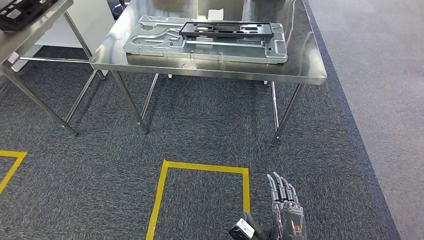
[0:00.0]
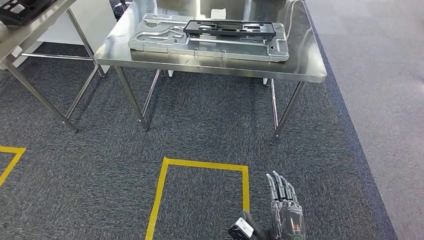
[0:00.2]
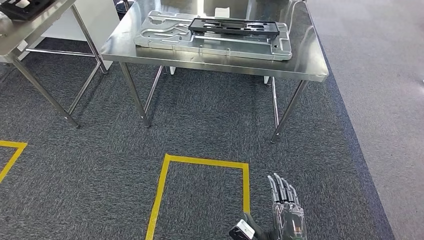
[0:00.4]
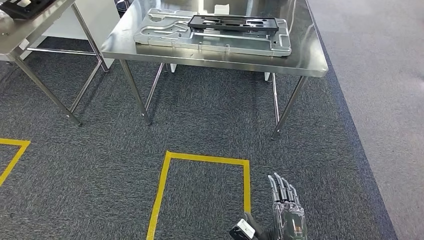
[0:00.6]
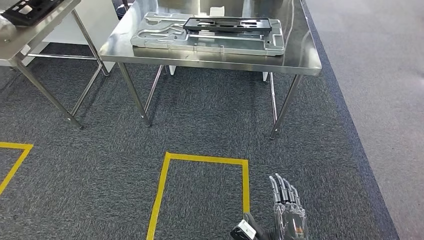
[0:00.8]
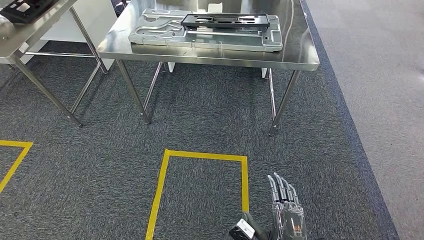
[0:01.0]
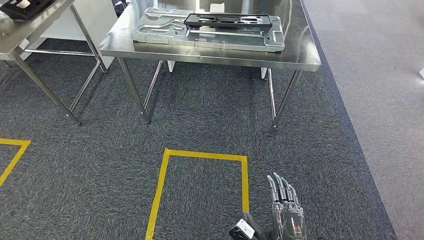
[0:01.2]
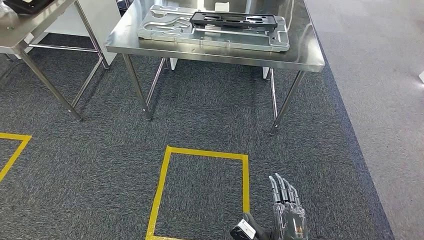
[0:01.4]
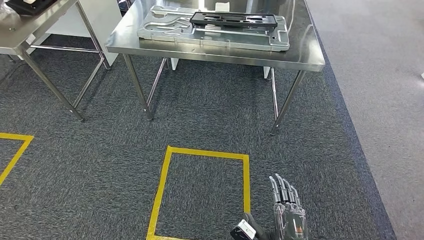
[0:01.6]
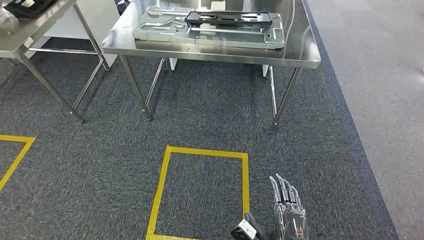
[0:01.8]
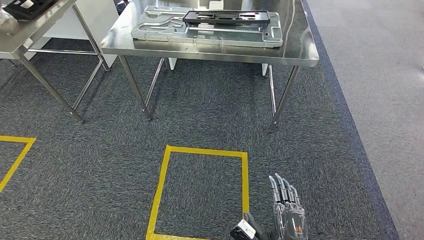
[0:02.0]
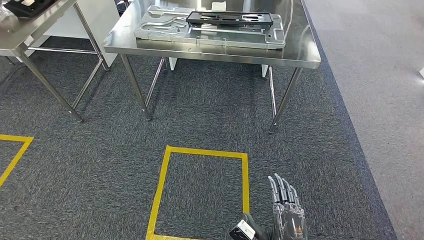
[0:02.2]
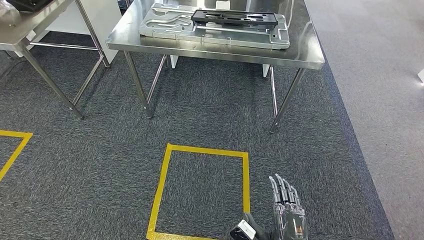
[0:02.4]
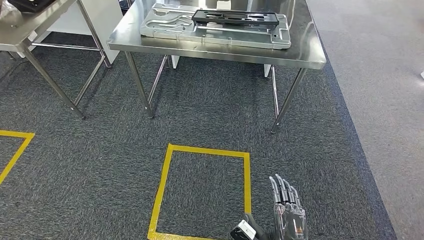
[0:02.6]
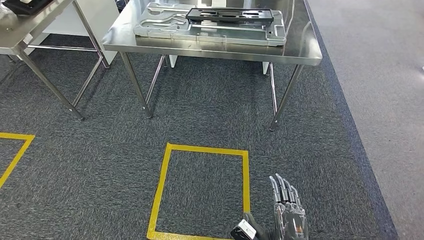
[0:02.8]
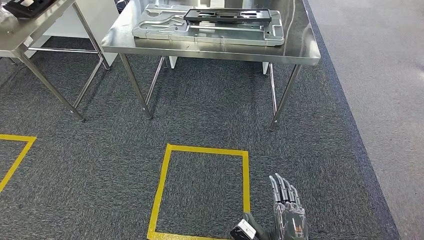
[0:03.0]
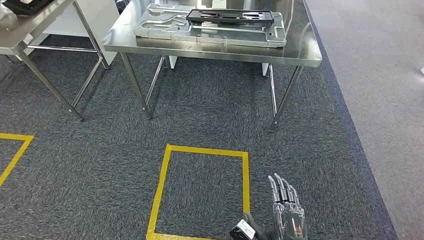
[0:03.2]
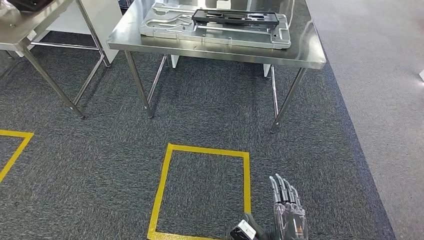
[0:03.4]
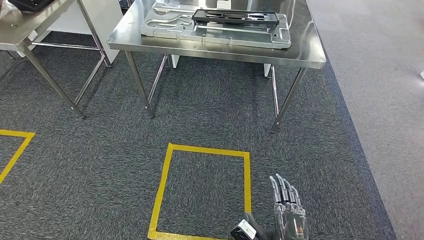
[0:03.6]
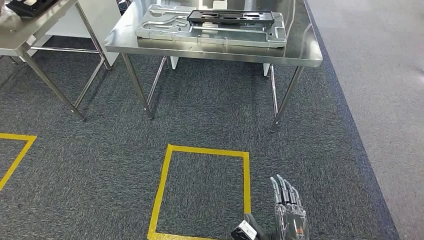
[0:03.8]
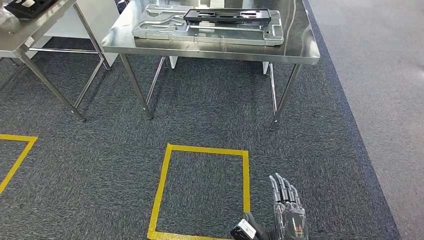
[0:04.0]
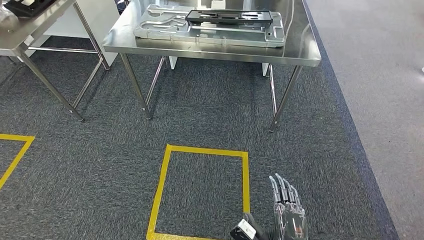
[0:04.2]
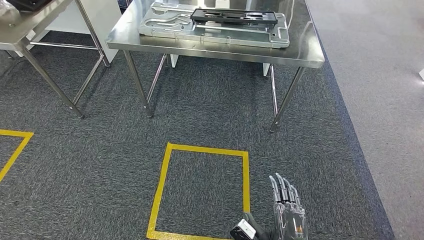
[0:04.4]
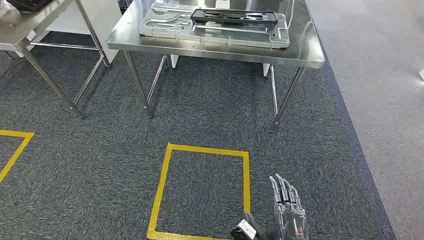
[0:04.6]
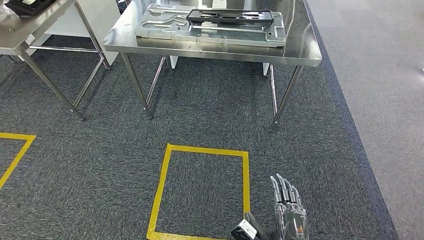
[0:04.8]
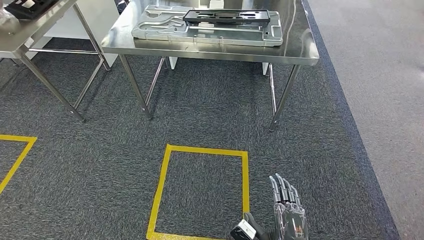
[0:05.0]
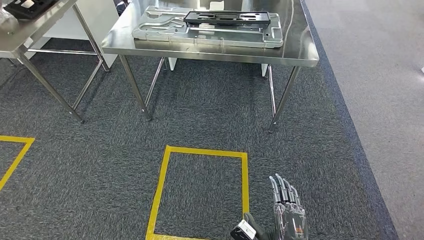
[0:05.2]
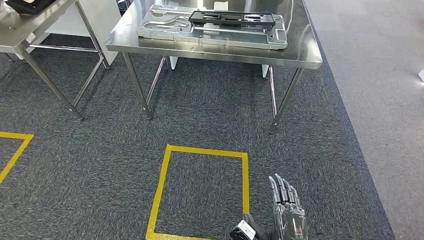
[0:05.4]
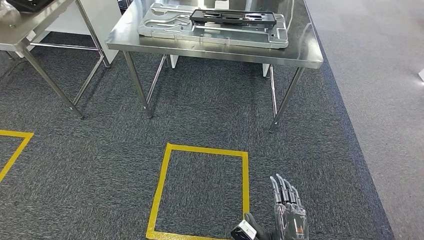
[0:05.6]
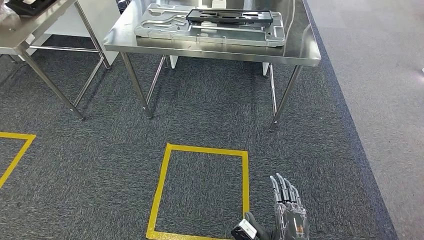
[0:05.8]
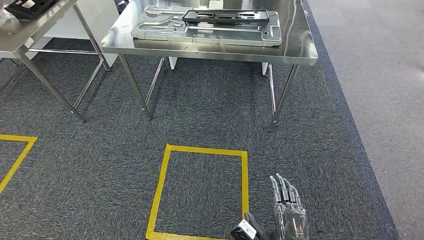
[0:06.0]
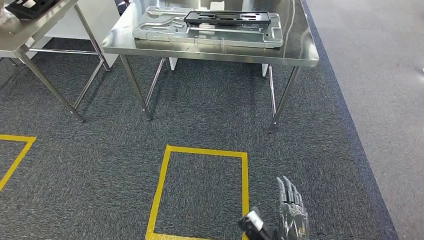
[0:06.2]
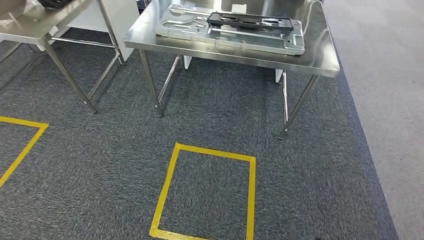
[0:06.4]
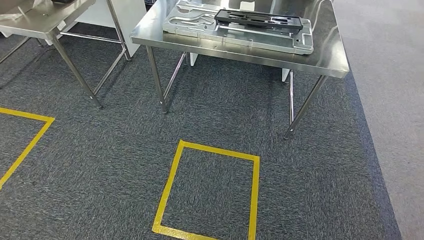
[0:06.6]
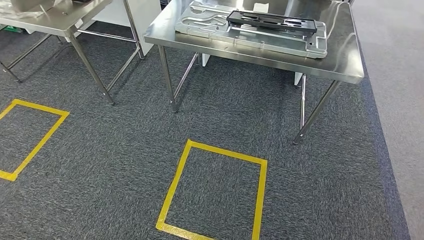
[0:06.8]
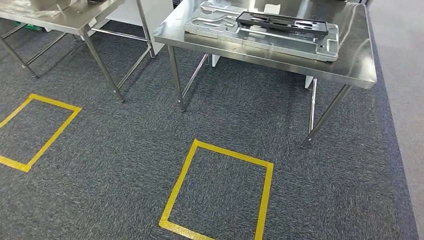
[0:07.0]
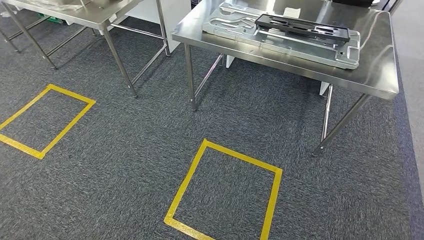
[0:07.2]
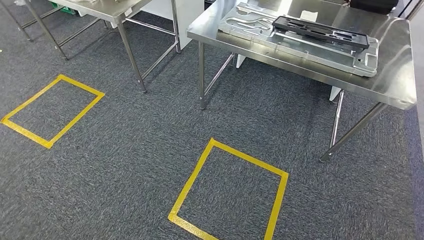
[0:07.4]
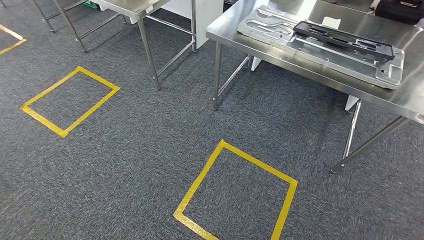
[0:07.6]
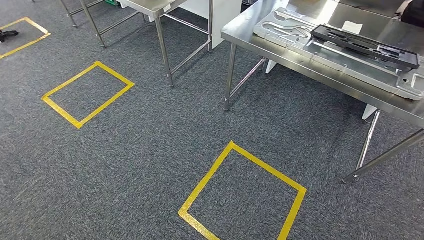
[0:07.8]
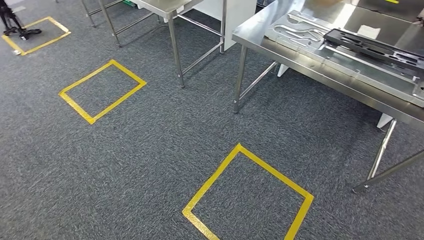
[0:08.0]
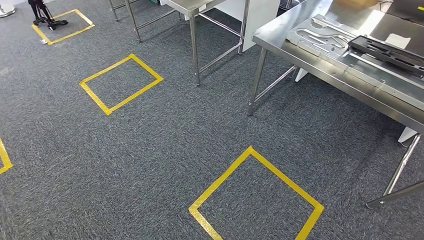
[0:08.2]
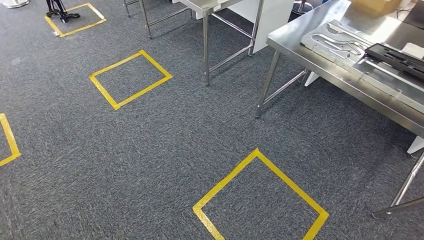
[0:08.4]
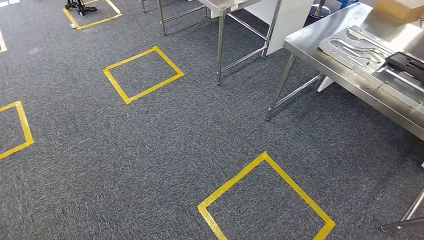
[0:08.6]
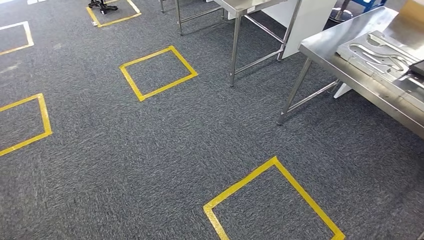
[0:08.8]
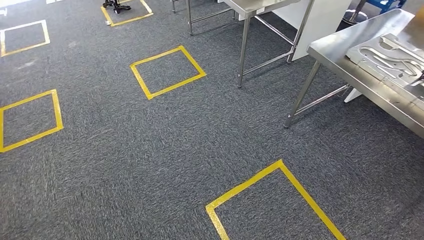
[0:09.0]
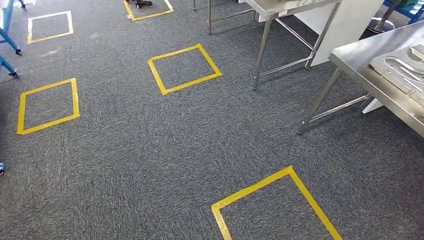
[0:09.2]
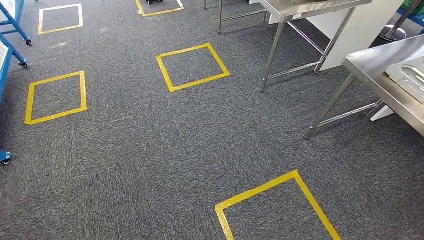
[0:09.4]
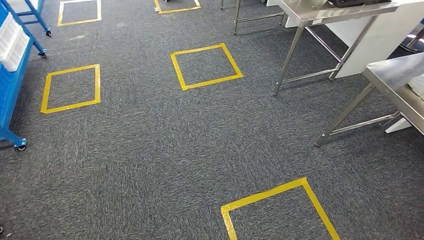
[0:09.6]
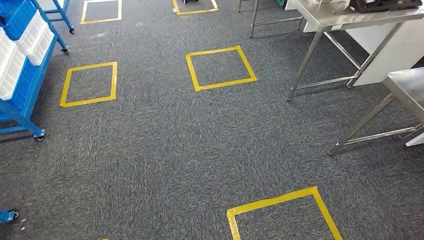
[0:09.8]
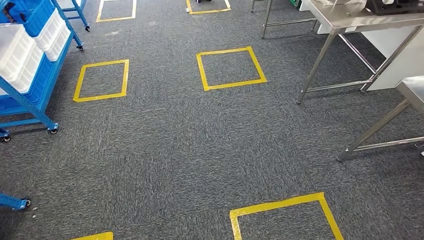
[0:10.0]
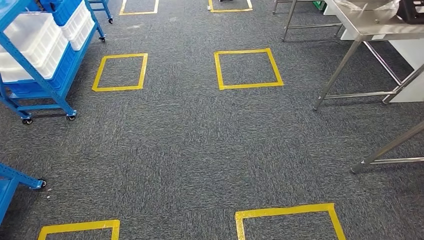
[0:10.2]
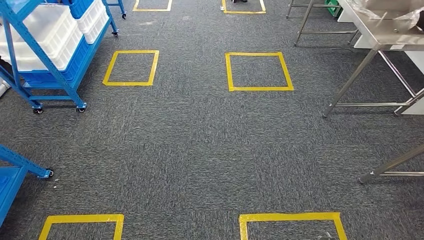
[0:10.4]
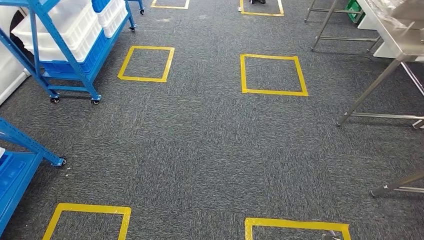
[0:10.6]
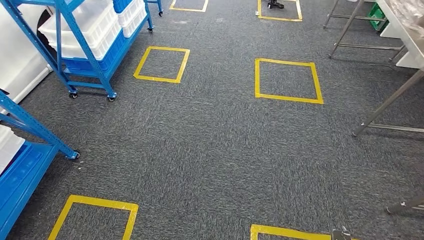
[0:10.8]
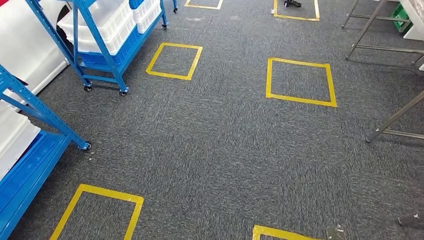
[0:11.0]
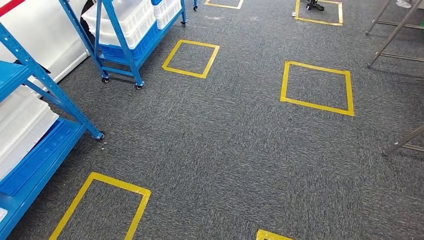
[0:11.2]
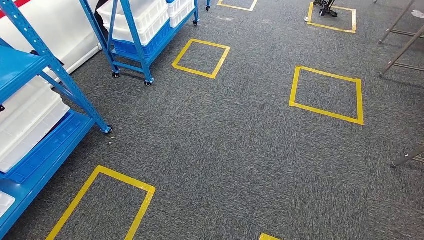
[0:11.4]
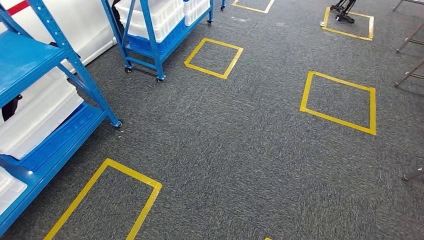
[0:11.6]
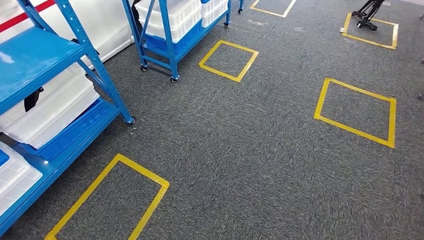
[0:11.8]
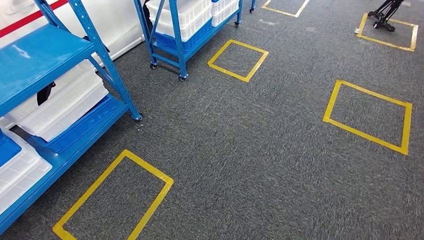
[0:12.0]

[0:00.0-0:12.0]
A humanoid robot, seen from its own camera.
0:00.0 to 0:06.0: Neither hand changes place.

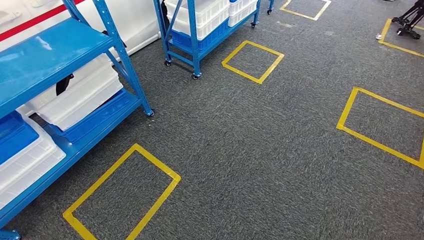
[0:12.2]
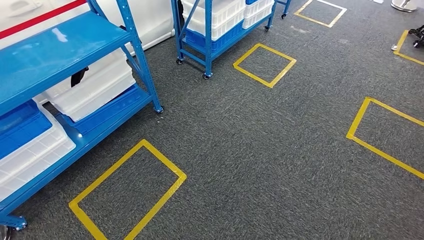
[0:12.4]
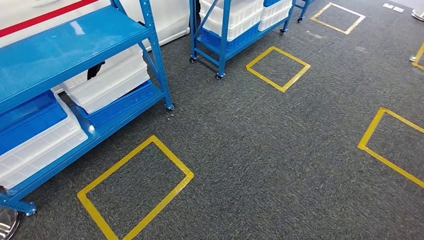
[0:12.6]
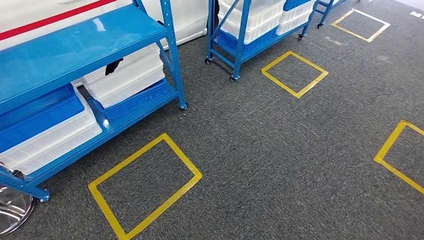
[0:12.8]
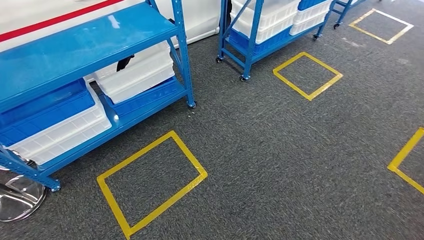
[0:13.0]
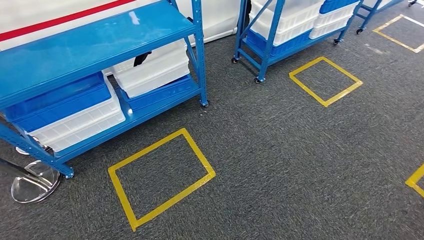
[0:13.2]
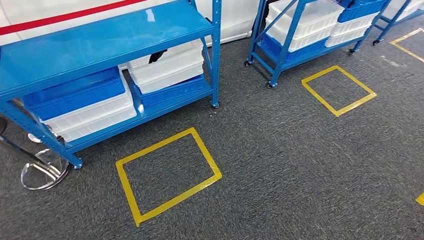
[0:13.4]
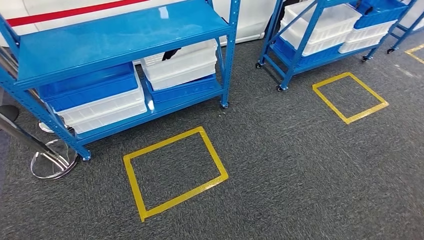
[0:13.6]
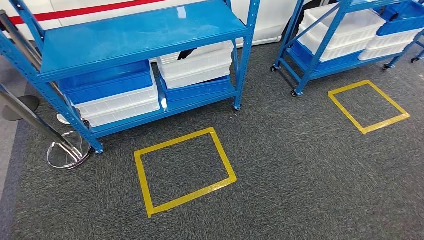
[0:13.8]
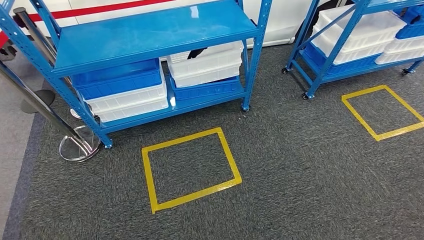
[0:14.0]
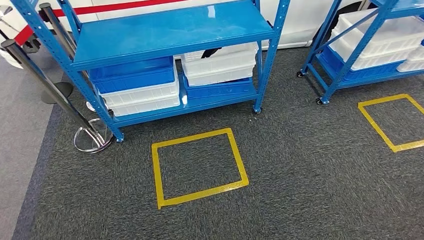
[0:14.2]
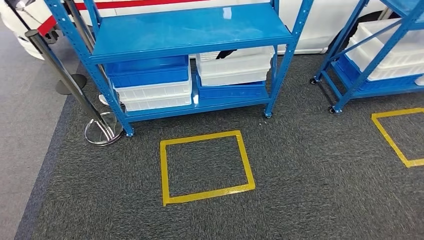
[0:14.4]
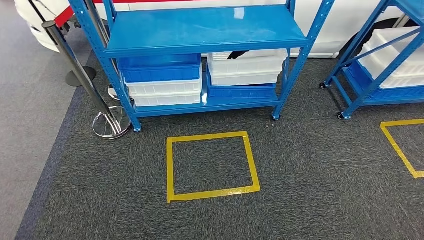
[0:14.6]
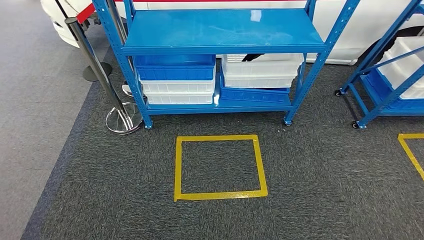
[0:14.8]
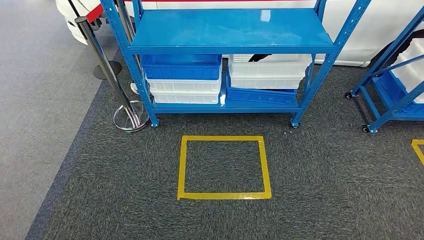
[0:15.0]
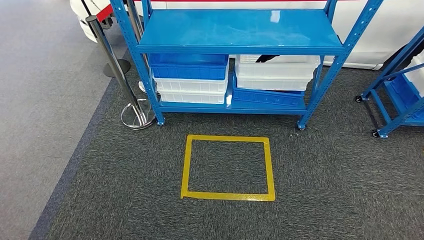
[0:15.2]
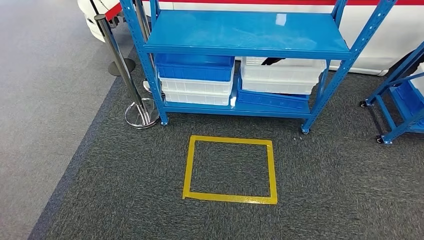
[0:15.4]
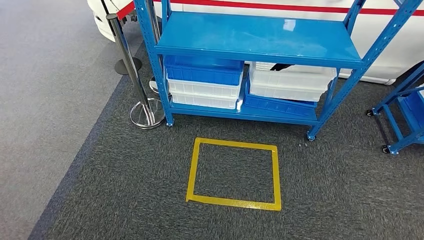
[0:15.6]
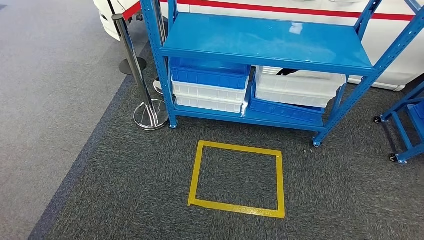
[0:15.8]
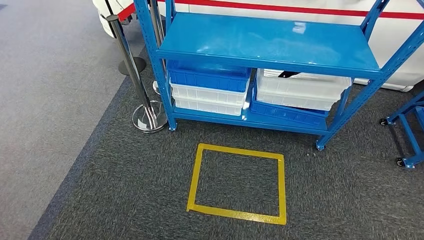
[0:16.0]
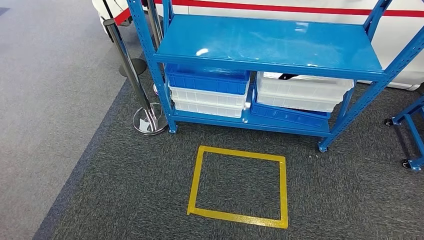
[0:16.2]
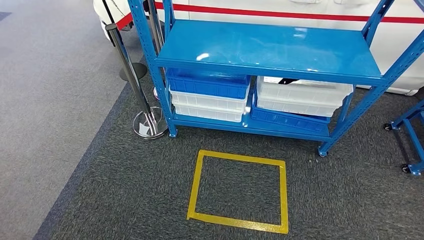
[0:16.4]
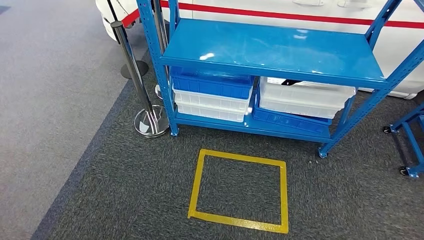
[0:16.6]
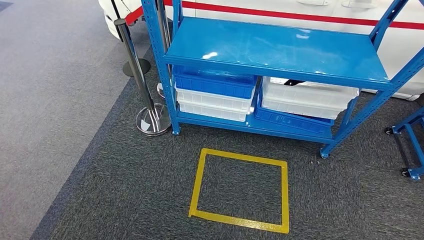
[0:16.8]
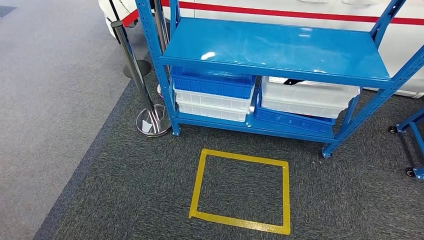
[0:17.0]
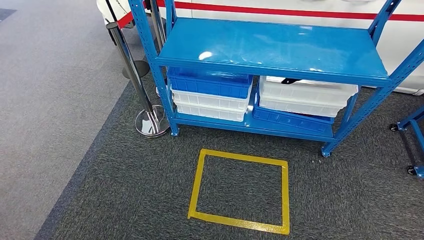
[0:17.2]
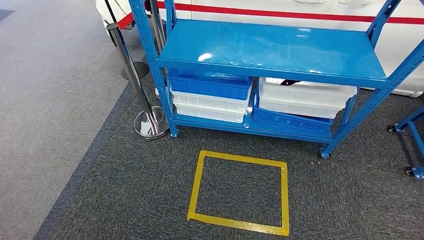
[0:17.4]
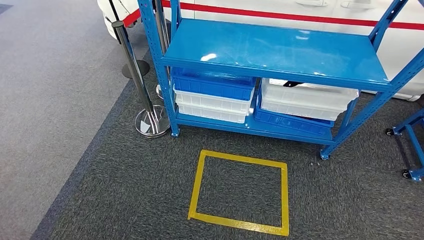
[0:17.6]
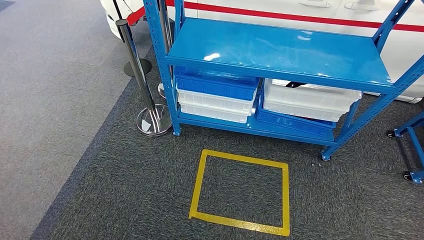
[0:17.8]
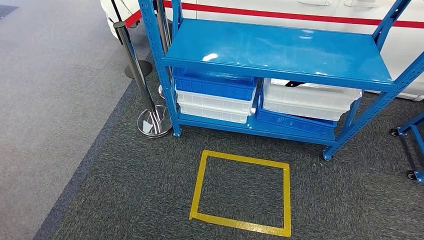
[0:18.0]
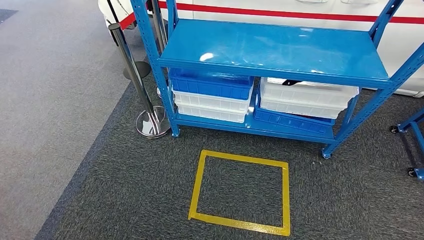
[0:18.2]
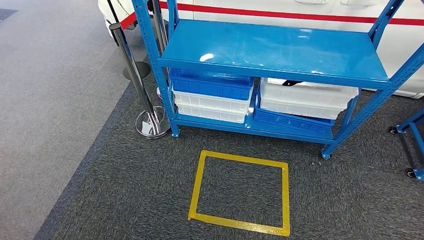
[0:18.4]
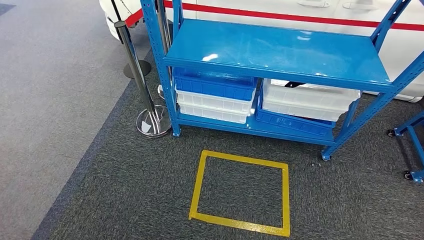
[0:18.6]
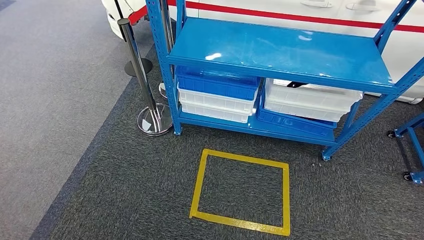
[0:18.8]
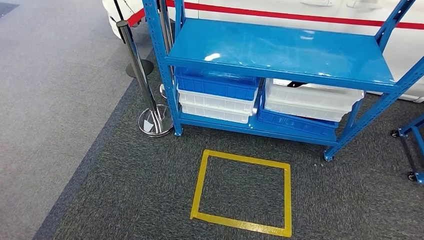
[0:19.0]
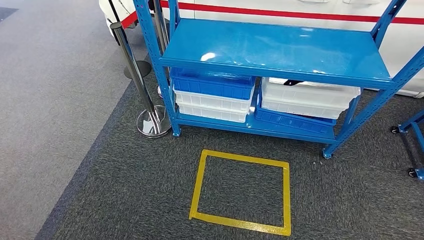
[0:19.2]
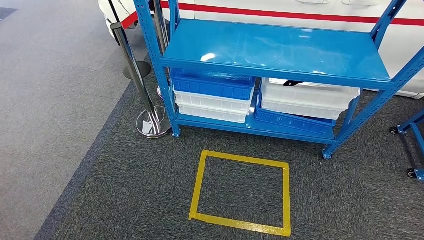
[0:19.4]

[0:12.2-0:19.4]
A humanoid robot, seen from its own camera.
0:16.6 to 0:19.4: Both hands stay put.
